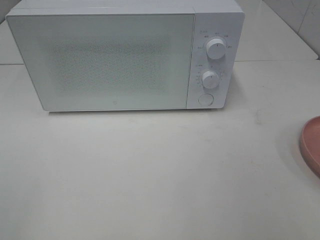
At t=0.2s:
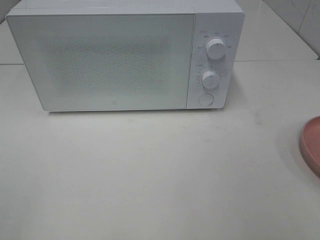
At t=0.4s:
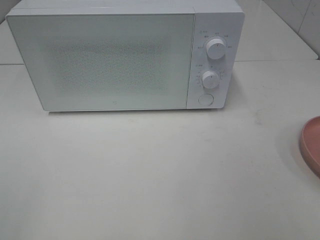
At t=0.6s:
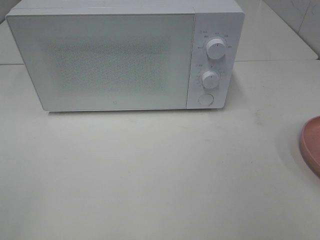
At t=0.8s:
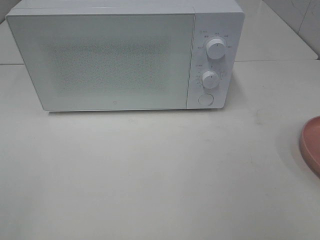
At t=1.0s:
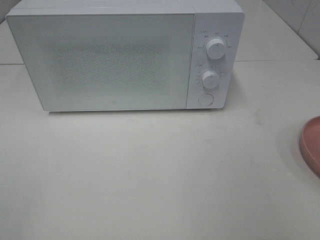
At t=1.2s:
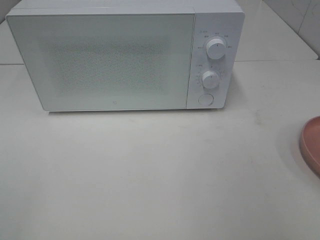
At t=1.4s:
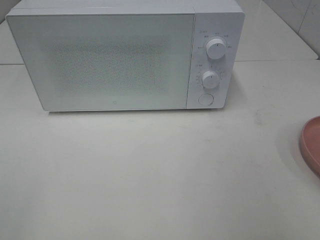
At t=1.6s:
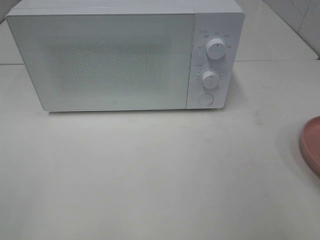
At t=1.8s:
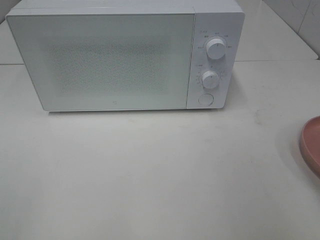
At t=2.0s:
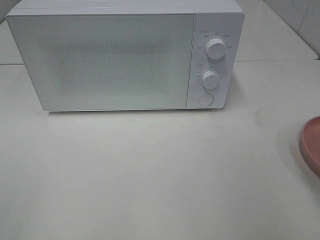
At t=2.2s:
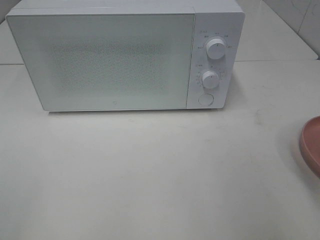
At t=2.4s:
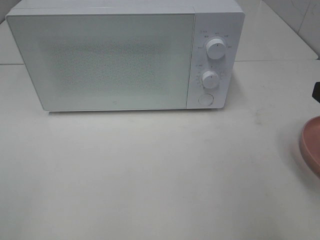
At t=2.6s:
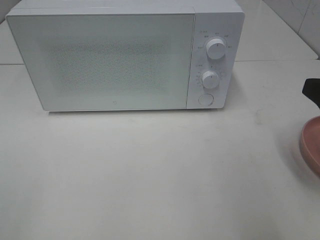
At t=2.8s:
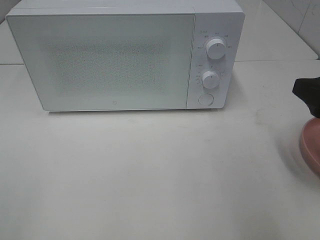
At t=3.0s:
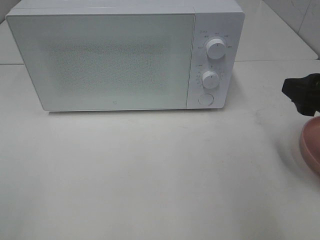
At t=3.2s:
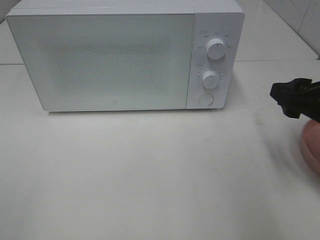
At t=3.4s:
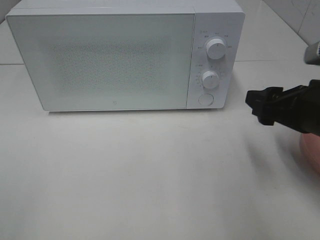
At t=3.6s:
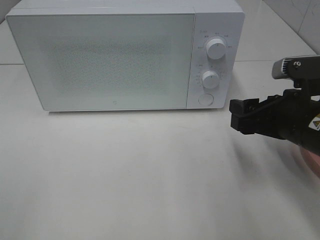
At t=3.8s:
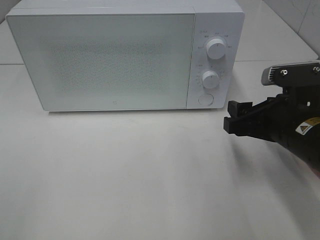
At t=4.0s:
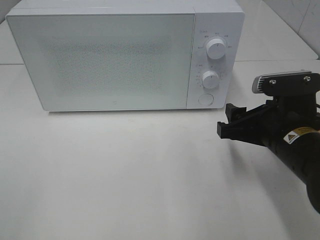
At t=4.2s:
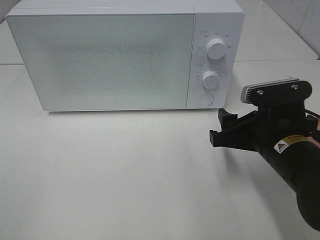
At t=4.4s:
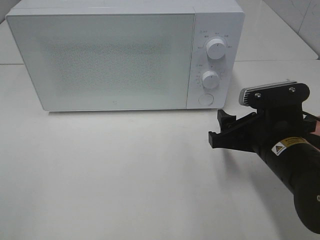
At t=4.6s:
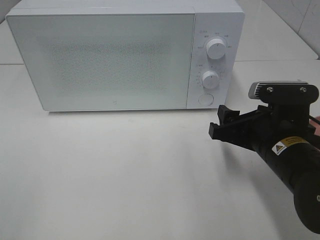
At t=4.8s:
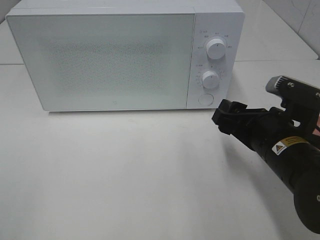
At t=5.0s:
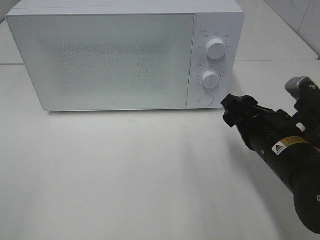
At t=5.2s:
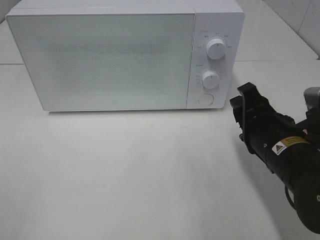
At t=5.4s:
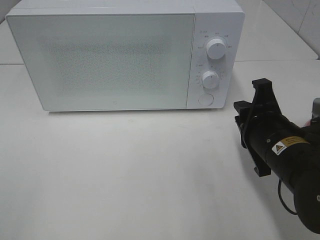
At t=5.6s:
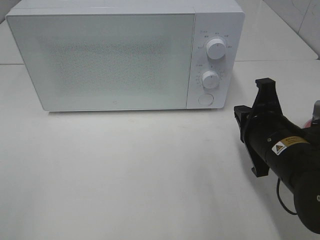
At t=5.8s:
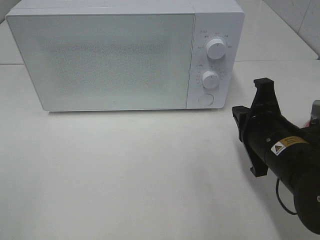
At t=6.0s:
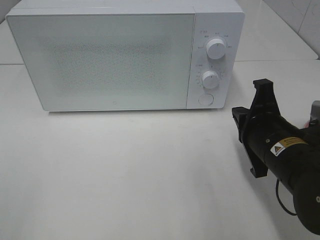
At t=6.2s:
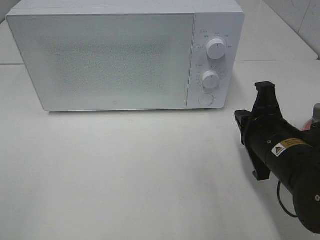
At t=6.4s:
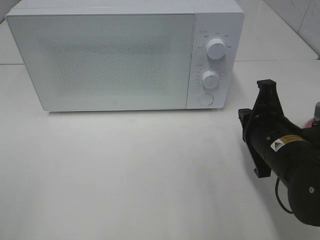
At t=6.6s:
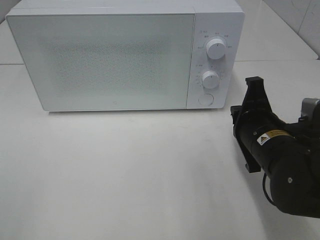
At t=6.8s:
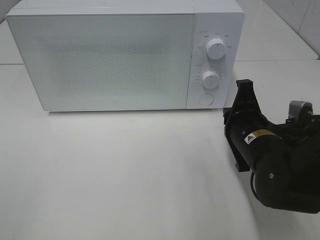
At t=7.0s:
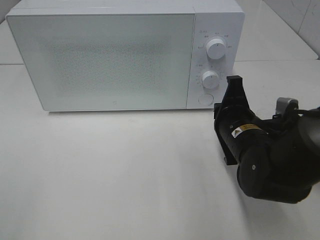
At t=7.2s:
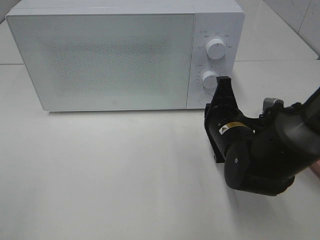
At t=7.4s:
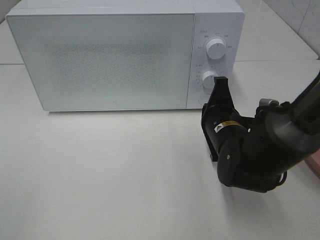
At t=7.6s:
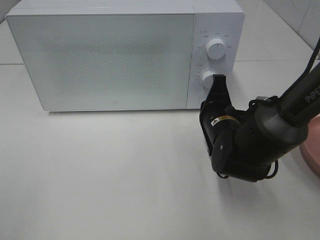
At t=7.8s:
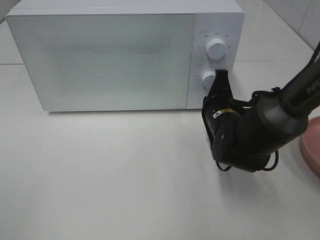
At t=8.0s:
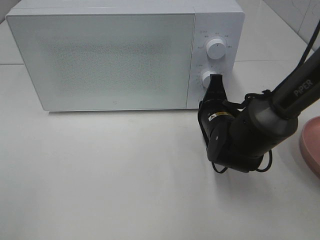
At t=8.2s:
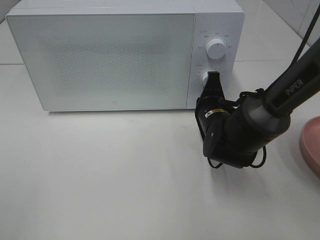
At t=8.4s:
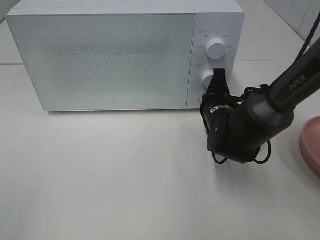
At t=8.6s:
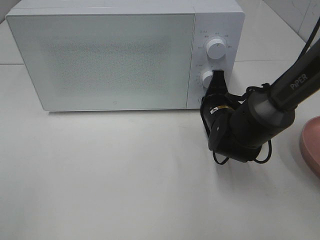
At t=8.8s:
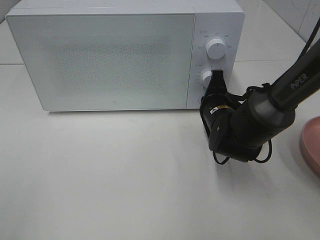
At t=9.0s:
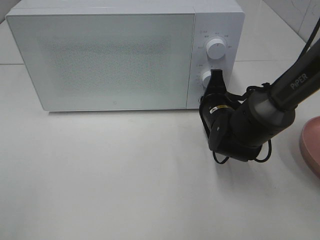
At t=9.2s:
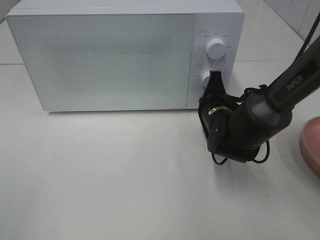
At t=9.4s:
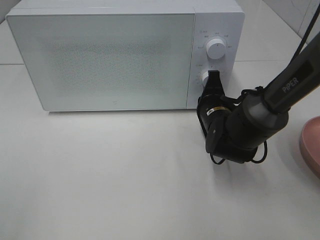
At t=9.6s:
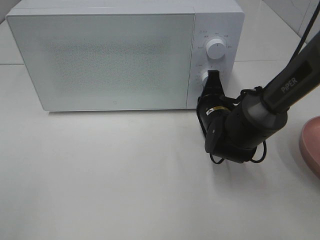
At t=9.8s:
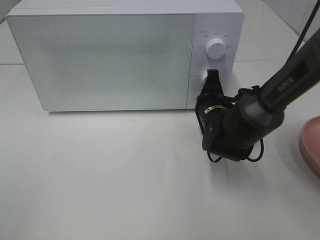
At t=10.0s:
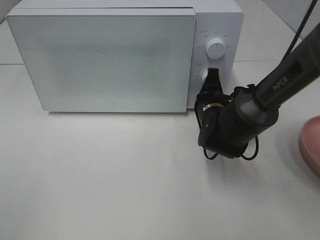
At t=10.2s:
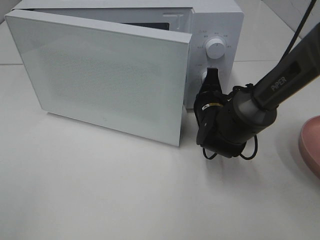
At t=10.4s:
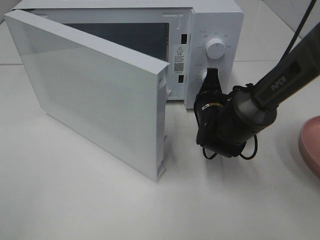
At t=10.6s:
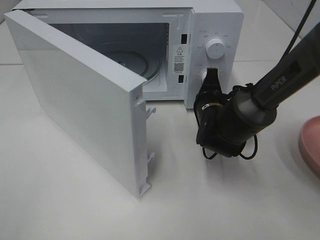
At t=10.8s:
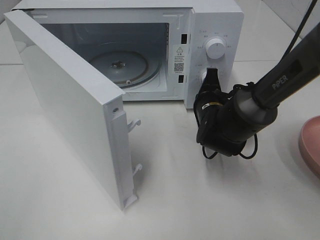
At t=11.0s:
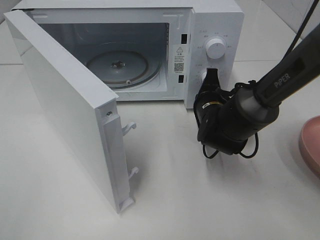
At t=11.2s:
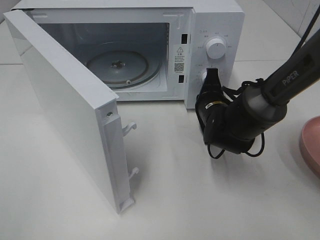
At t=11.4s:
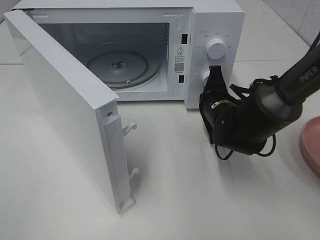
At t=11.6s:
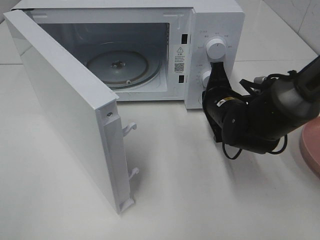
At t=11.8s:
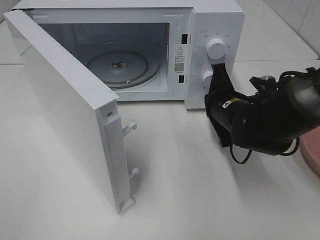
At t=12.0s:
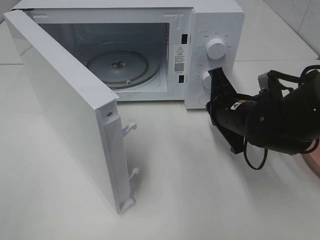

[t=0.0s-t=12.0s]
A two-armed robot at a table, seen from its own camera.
Task of the whole recording: Heat the burger.
Step, t=0.0s to t=11.4s: Right hand: press the switch.
t=1.6s to t=3.0s: The right gripper goes about 10 cm forward and downward.
t=3.0s to t=4.4s: The right gripper travels downward and to the left by some 10 cm.
t=4.4s to t=6.0s: The right gripper closes up.
t=6.0s to t=7.6s: The right gripper goes about 10 cm forward and to the left.
t=7.6s to t=9.0s: The grippers make only small movements.
t=10.4s to t=12.0s: The right gripper is displaced backward and upward by approximately 10 cm.

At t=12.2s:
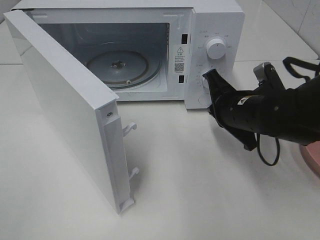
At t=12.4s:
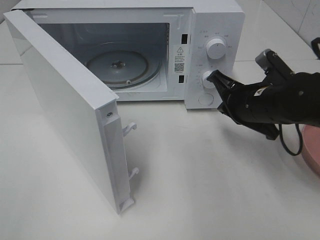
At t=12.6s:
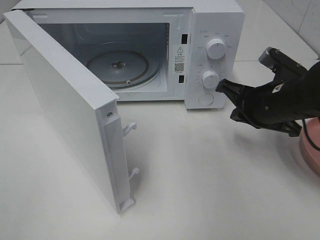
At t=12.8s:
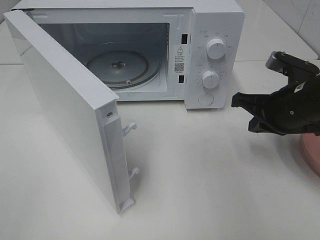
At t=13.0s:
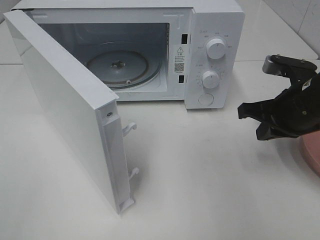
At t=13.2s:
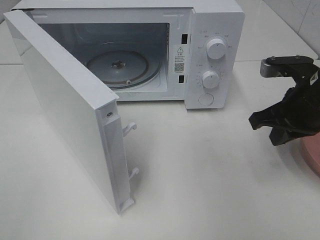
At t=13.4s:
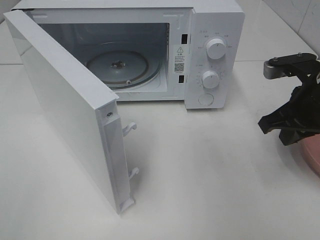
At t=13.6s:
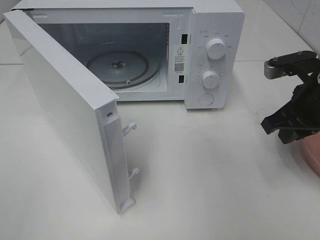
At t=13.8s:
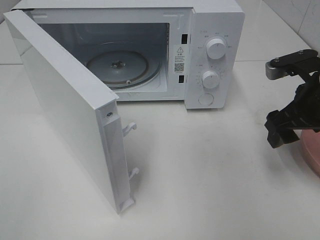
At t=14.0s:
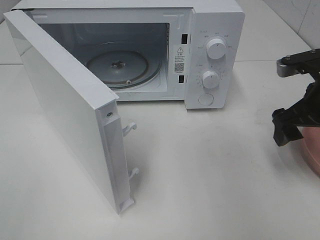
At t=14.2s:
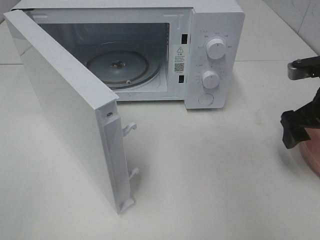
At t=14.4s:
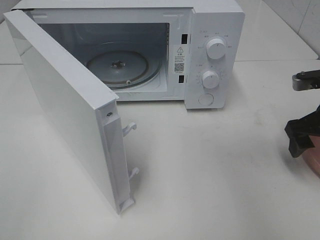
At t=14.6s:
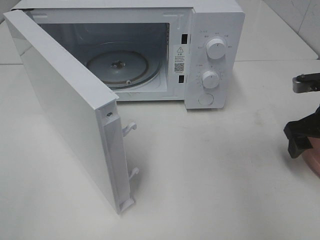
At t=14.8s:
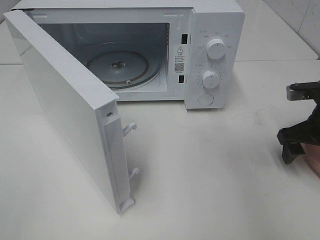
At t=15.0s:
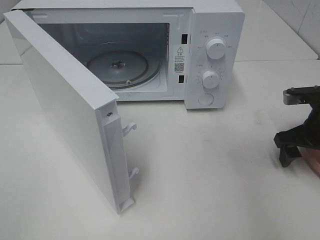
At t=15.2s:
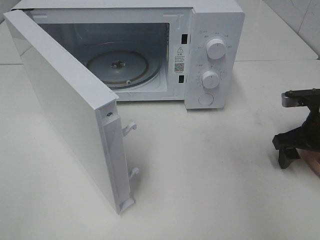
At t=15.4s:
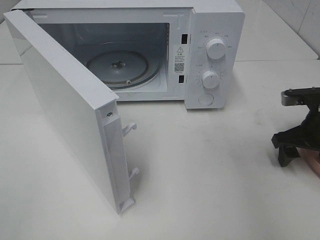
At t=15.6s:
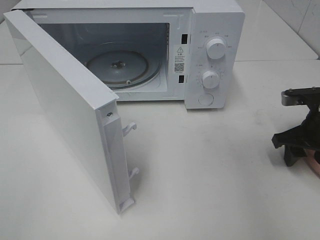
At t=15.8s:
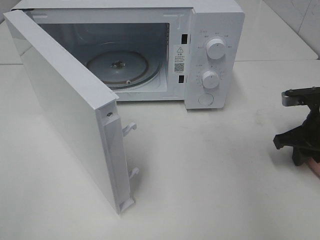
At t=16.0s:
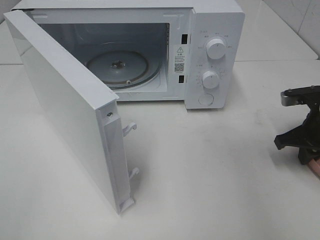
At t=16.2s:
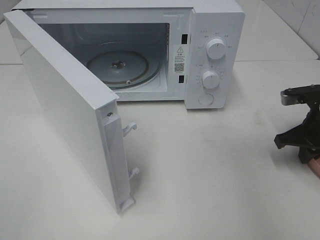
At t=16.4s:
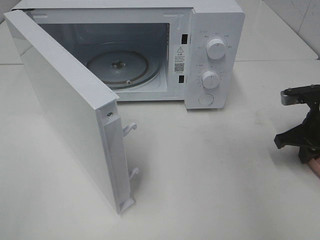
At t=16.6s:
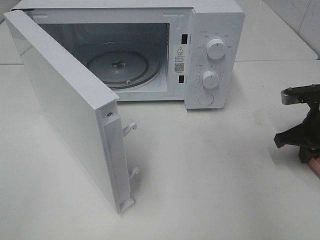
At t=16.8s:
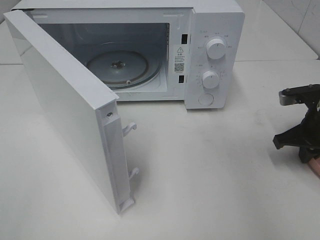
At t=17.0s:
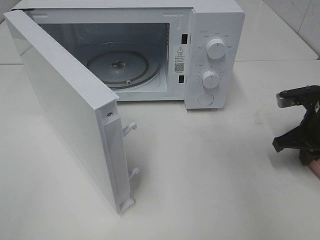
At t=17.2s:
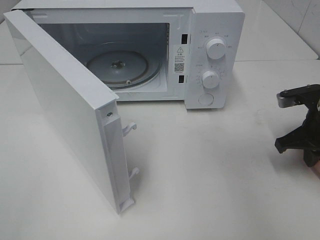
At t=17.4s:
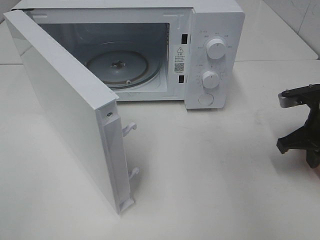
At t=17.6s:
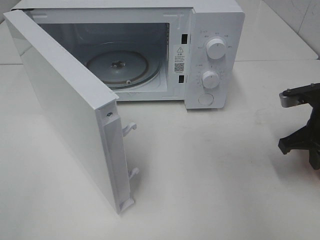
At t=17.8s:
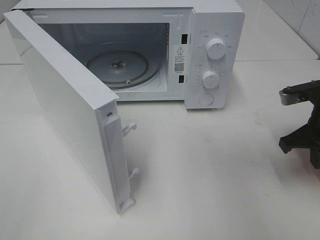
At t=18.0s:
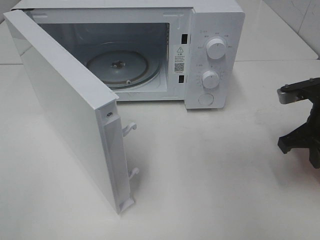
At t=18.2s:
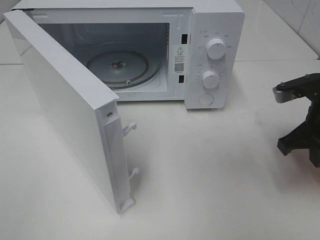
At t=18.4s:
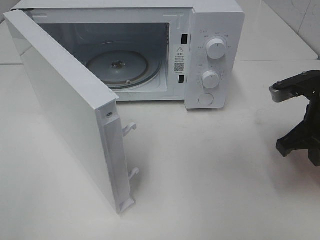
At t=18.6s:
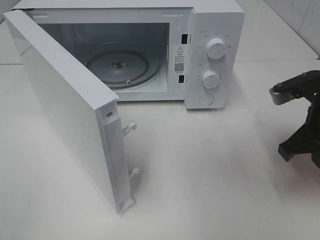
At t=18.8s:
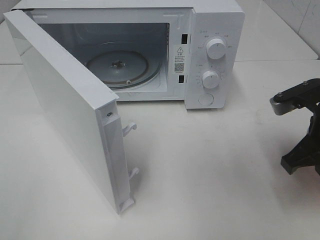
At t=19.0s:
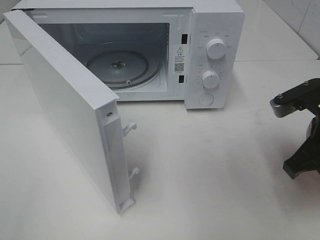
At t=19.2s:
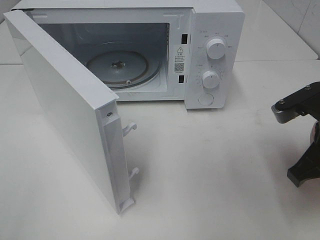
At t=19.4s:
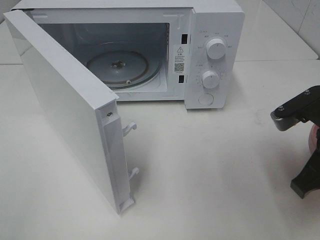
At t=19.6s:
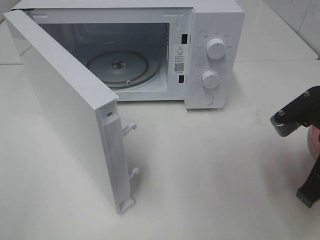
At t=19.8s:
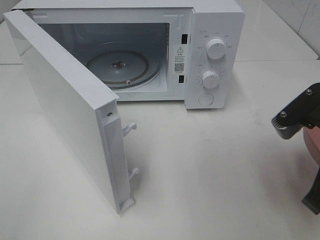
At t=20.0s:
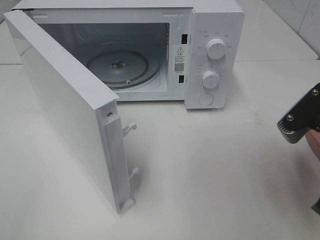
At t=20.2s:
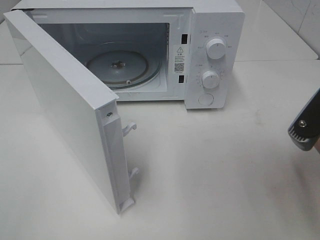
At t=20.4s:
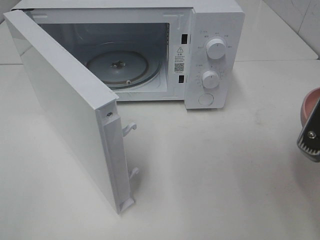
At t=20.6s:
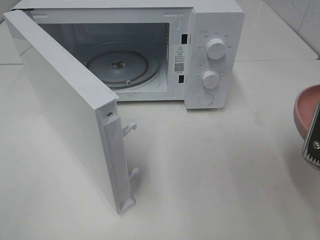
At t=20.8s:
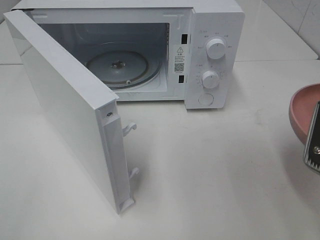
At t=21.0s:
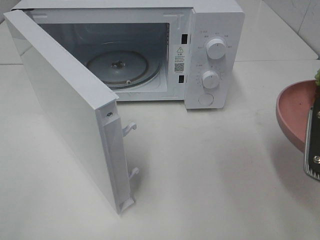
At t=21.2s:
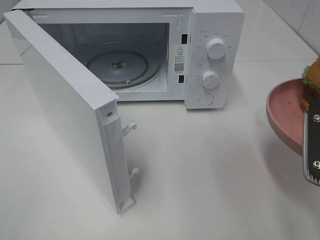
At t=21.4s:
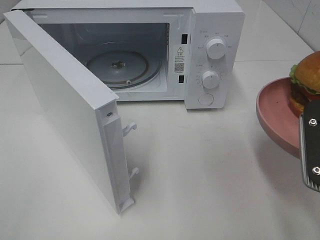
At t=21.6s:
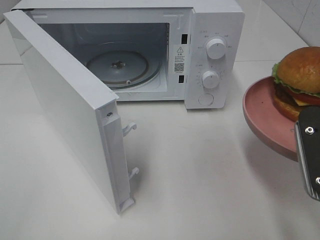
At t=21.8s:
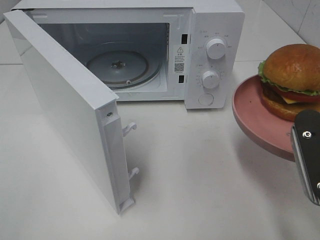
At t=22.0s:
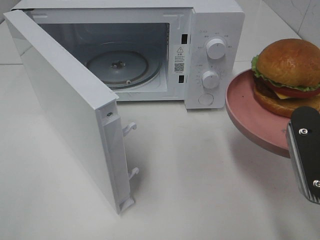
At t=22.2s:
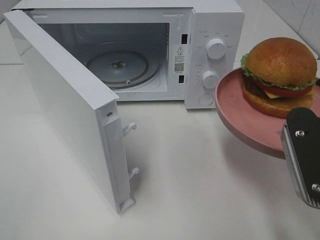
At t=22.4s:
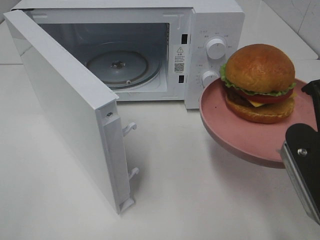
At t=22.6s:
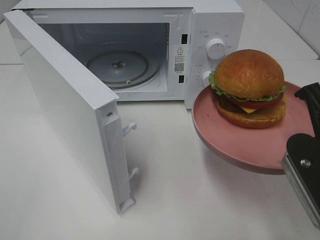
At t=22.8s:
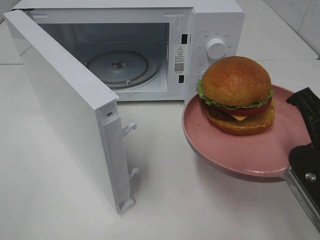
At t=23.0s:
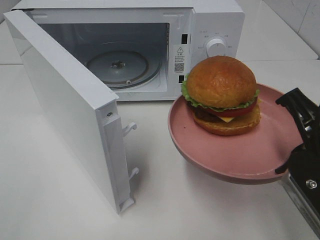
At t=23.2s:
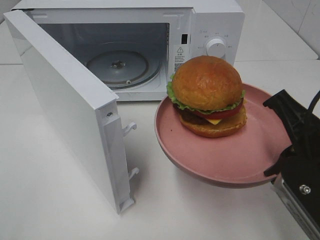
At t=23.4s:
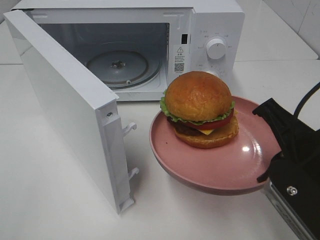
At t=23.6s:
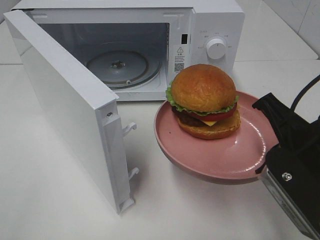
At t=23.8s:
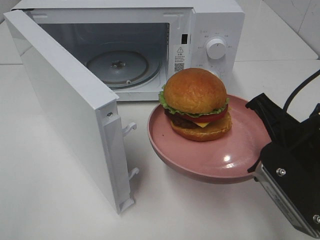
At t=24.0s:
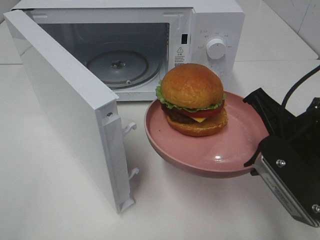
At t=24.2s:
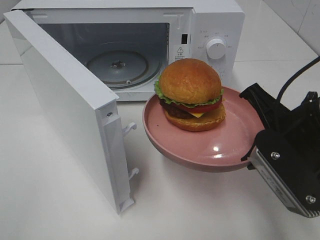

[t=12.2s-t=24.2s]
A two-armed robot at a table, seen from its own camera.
Task of the whole recording: Heat the burger.
Step, t=12.2s to t=16.2s: Right hand: grab the plate with the hamburger.
t=12.2s to t=13.8s: The right gripper is displaced to the right and upward by roughly 10 cm, and opens up.
t=13.8s to t=15.2s: The right gripper is displaced downward and to the right by approximately 10 cm.
t=15.2s to t=16.6s: The right gripper closes its fingers.
t=16.6s to t=18.2s: The right gripper shifts roughly 5 cm upward.
t=18.2s to t=19.8s: The right gripper moves backward, about 10 cm.
t=22.6s to t=24.2s: The right gripper moves about 5 cm.
